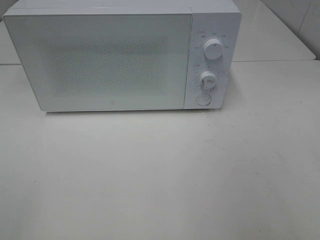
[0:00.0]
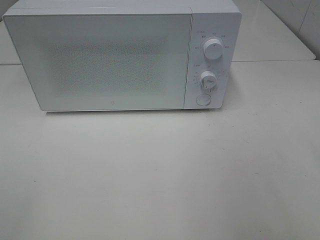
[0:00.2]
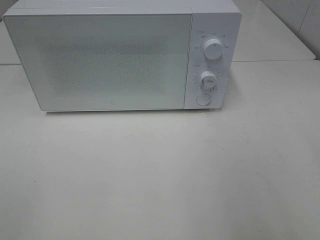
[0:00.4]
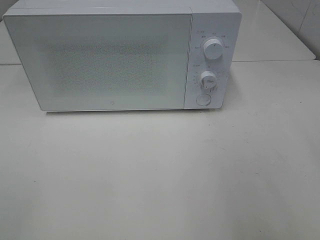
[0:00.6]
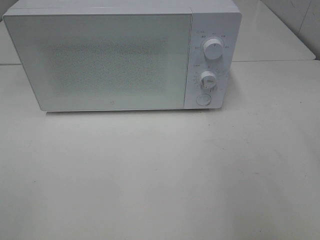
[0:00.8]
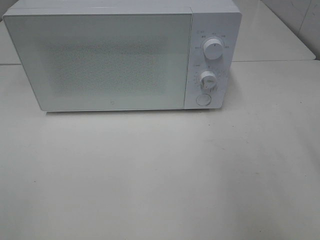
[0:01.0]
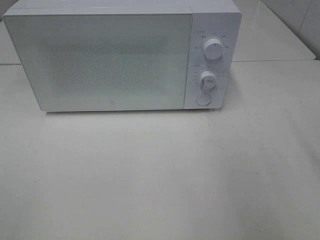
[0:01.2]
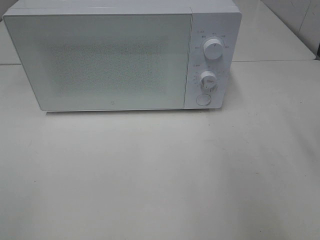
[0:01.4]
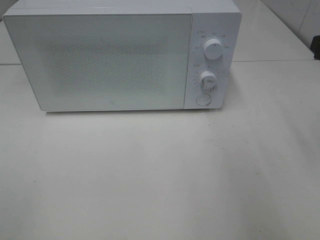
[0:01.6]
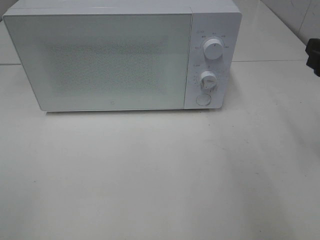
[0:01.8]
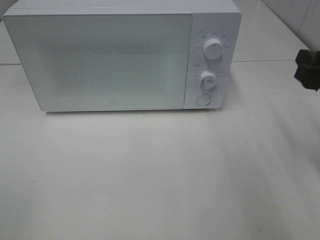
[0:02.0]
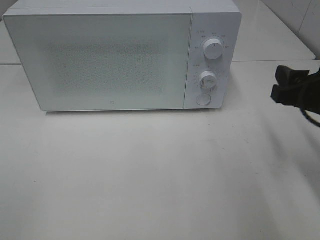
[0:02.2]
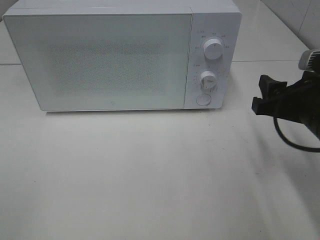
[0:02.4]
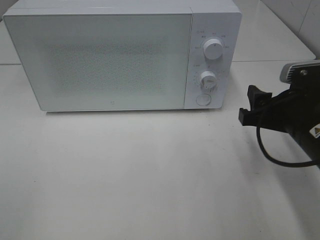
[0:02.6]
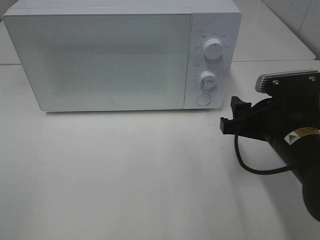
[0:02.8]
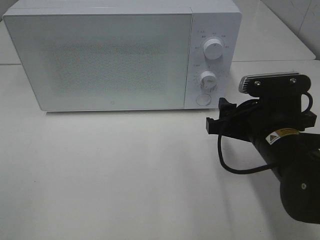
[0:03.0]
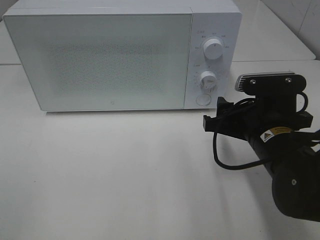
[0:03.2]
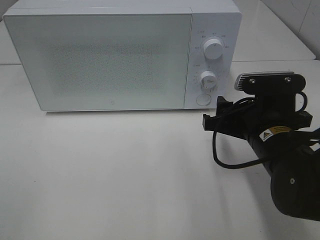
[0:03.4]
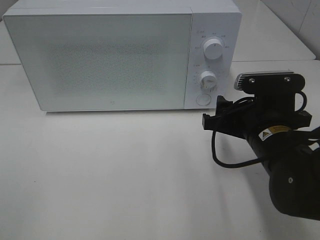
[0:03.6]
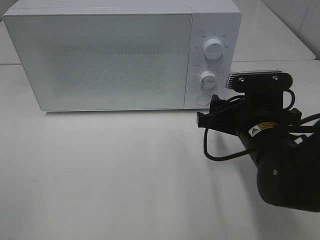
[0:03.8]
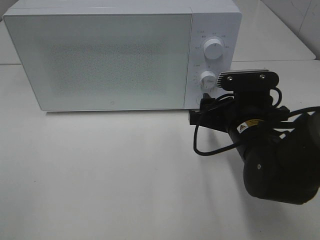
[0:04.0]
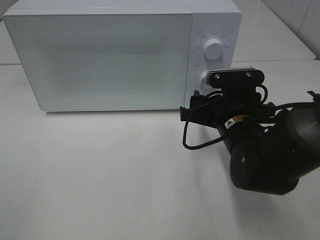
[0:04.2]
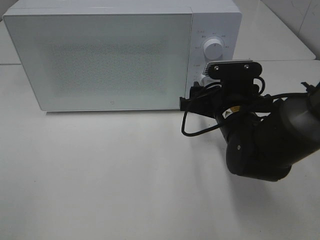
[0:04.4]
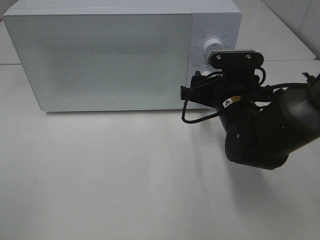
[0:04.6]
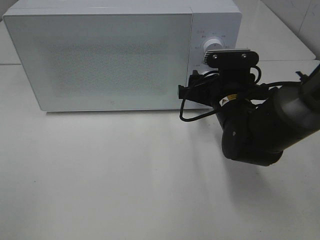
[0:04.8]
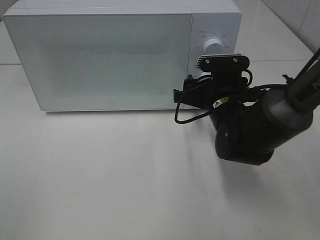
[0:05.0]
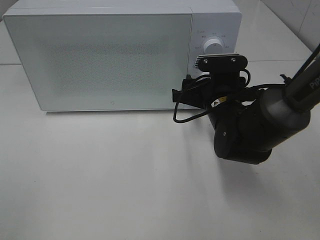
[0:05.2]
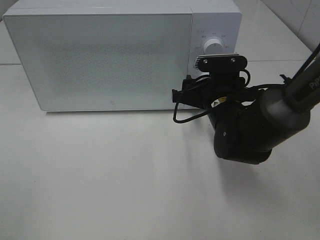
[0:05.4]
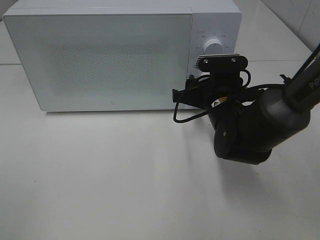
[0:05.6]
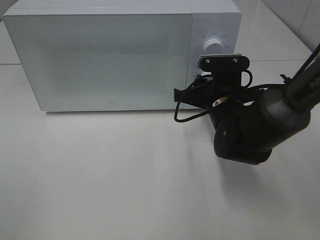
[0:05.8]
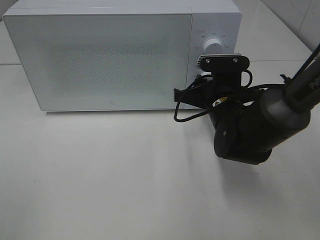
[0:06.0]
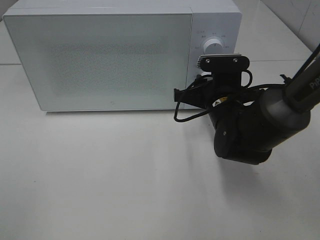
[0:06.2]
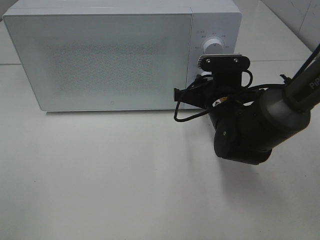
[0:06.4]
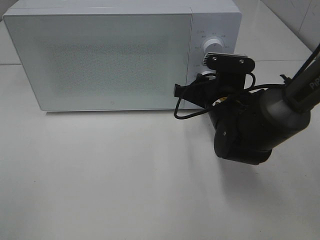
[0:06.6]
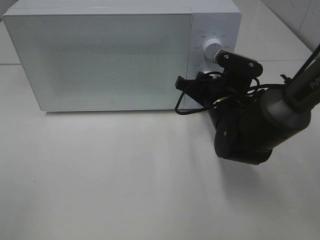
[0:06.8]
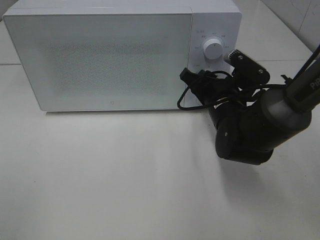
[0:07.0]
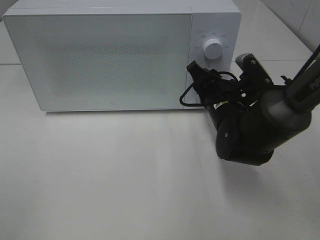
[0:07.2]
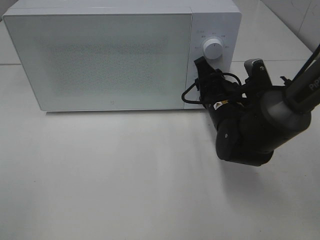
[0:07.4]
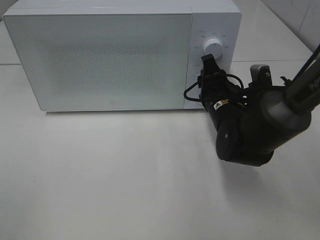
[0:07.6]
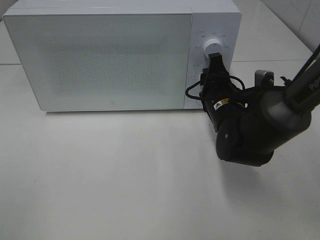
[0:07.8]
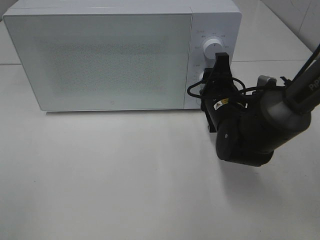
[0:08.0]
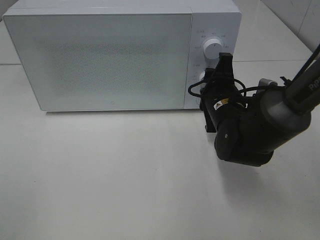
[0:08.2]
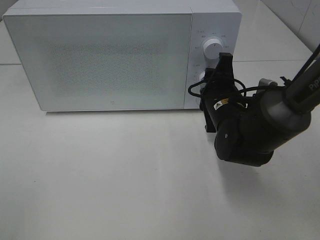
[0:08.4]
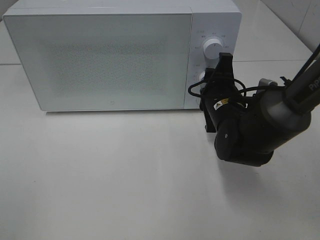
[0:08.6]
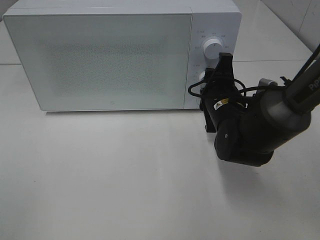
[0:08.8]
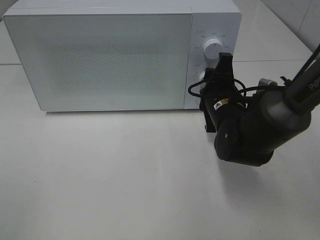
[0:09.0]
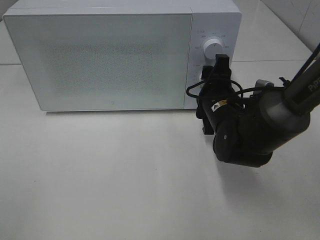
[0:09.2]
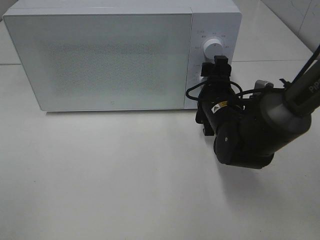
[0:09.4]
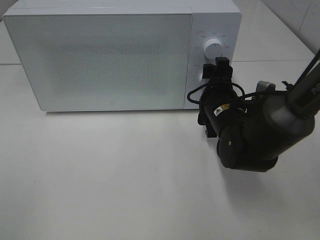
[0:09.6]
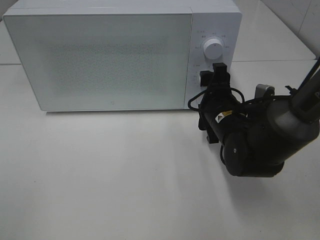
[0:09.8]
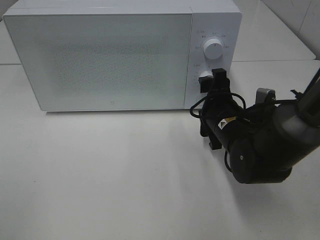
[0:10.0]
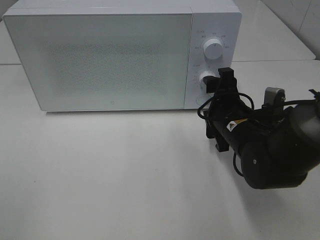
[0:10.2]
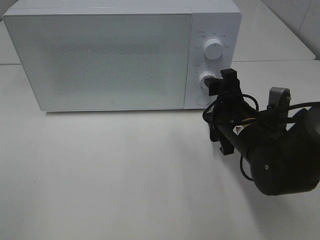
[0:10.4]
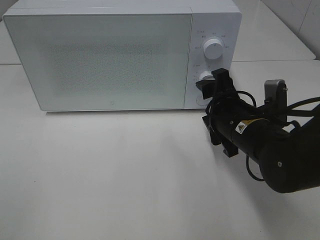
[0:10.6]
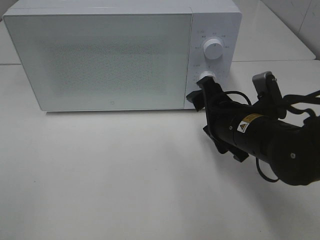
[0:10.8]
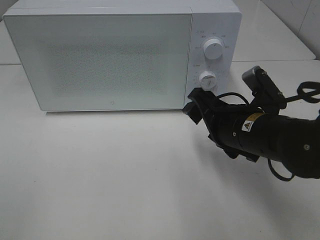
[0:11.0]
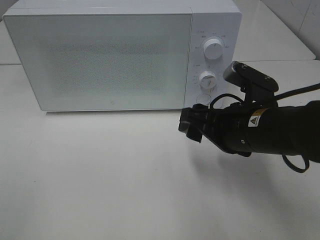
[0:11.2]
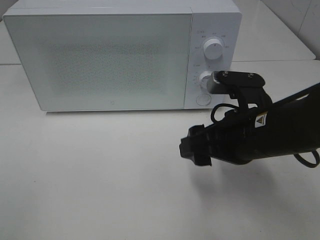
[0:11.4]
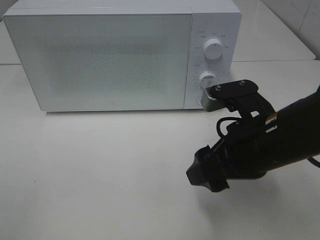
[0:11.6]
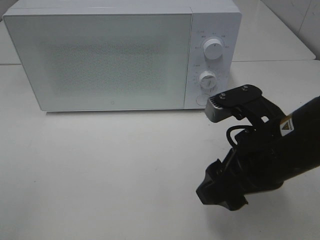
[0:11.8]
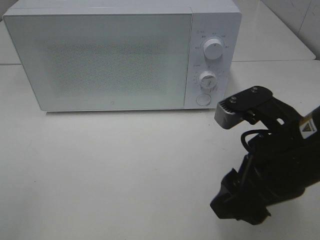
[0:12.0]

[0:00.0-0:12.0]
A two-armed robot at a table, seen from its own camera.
Task of the whole recording: Heat Sandwich.
Step, 0:00.0 to 0:09.8: Right hand: twist timer button.
0:01.6 to 0:03.0: The right gripper travels downward and to the left by roughly 15 cm.
0:03.0 to 0:04.4: The right gripper travels forward by some 5 cm.
0:04.4 to 0:06.0: The right gripper closes its fingers.
0:09.0 to 0:10.4: The right gripper shifts about 5 cm backward.
0:10.4 to 0:12.0: The right gripper heads backward and upward, covering some 15 cm.

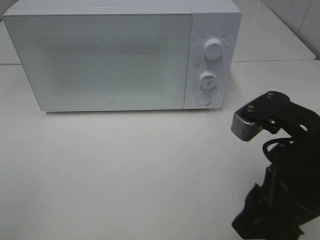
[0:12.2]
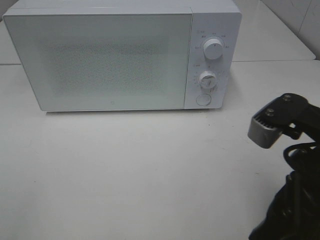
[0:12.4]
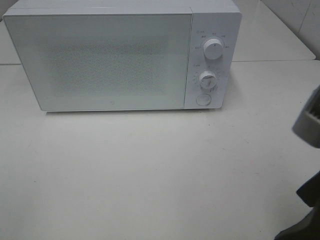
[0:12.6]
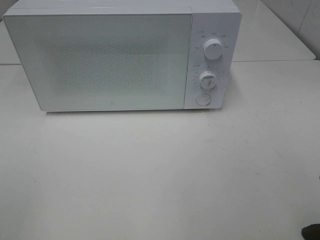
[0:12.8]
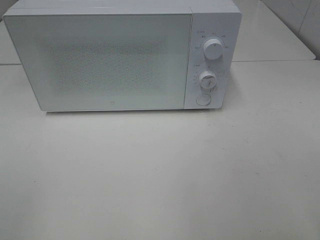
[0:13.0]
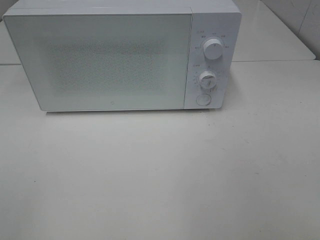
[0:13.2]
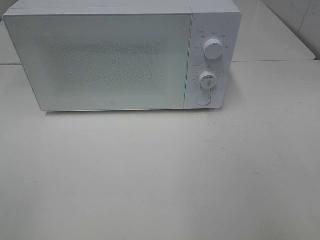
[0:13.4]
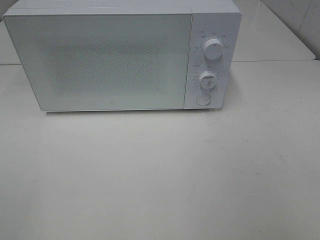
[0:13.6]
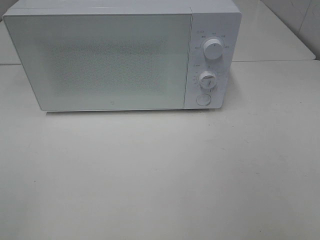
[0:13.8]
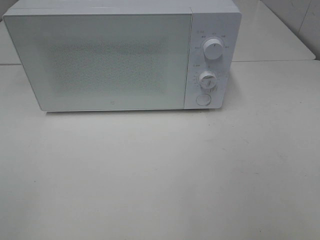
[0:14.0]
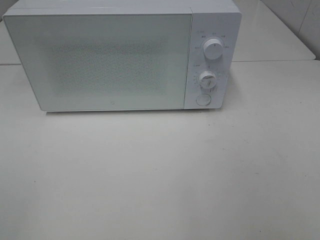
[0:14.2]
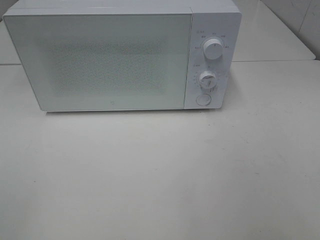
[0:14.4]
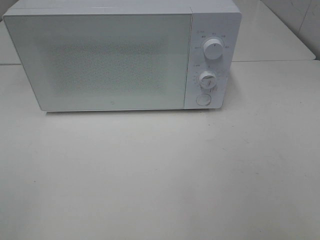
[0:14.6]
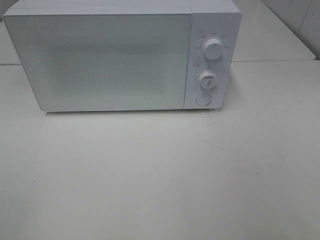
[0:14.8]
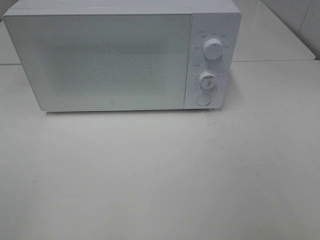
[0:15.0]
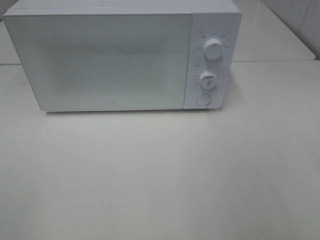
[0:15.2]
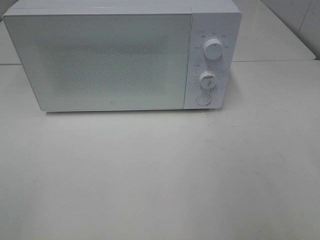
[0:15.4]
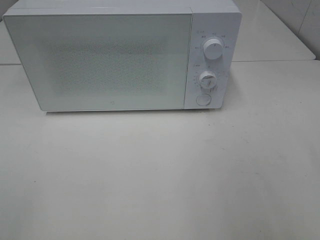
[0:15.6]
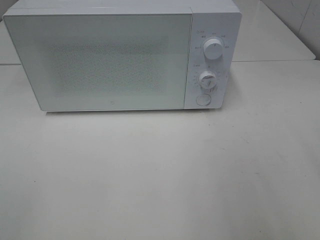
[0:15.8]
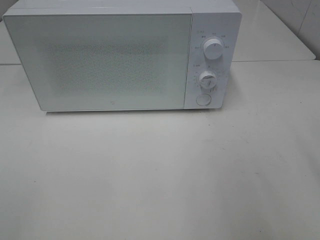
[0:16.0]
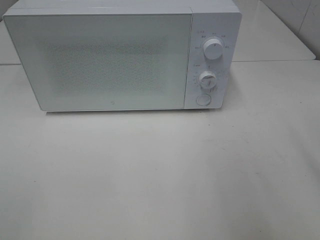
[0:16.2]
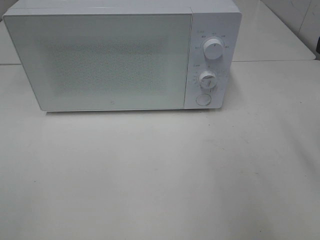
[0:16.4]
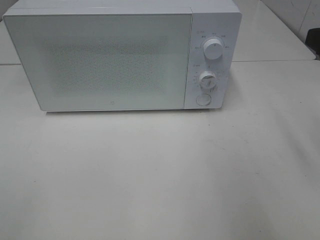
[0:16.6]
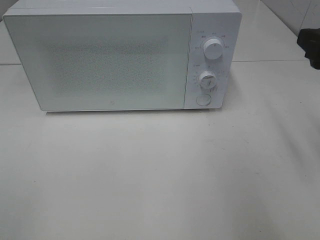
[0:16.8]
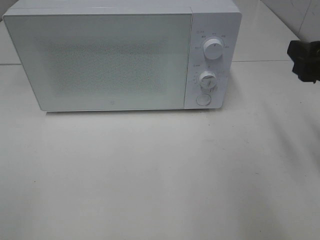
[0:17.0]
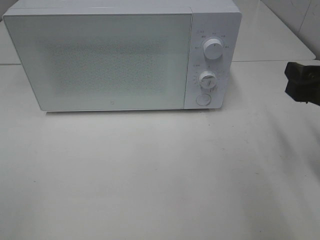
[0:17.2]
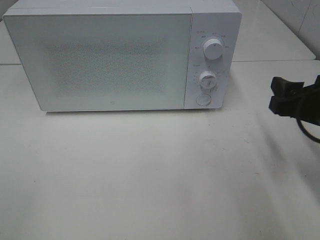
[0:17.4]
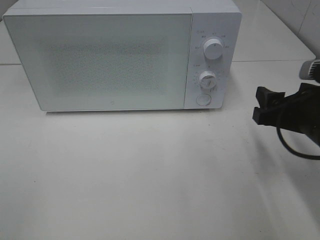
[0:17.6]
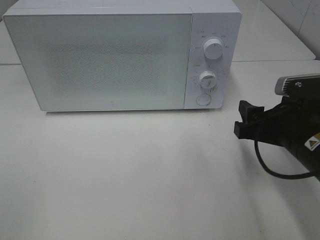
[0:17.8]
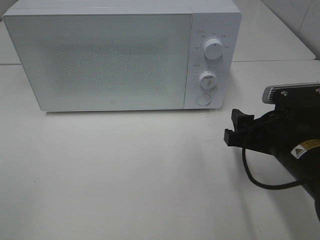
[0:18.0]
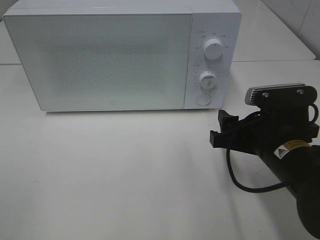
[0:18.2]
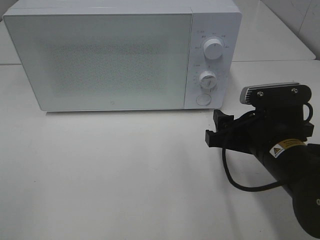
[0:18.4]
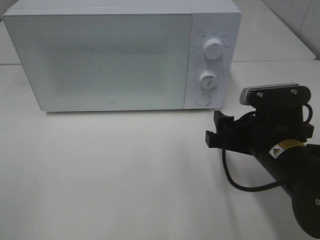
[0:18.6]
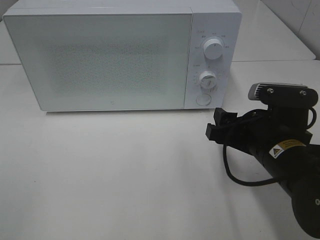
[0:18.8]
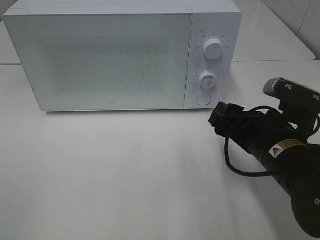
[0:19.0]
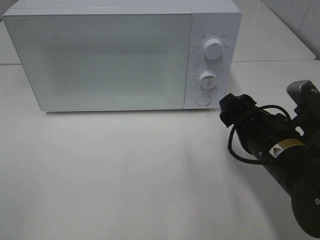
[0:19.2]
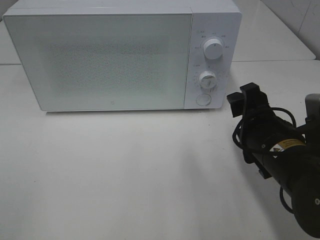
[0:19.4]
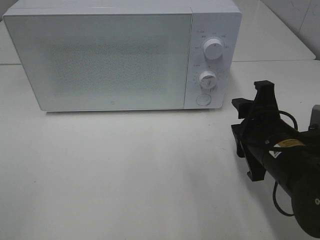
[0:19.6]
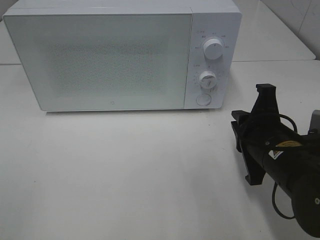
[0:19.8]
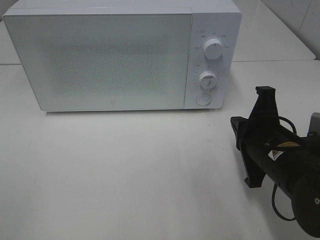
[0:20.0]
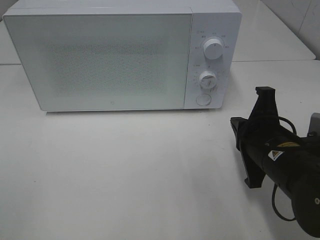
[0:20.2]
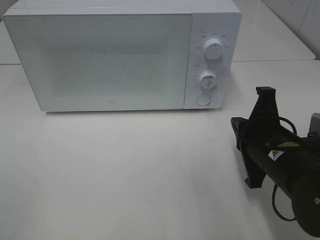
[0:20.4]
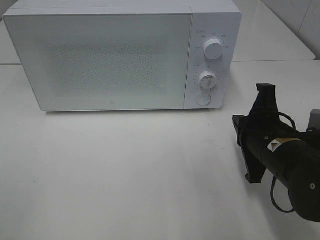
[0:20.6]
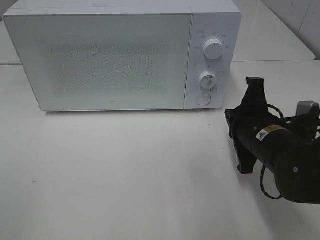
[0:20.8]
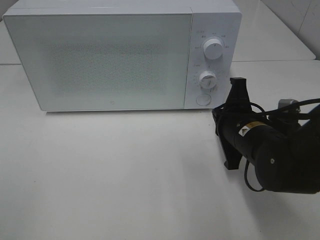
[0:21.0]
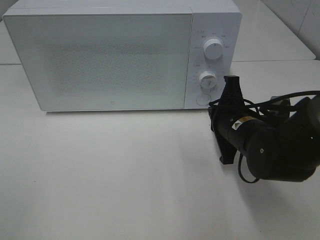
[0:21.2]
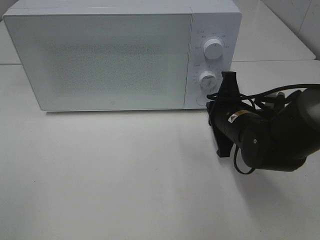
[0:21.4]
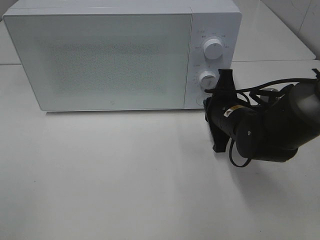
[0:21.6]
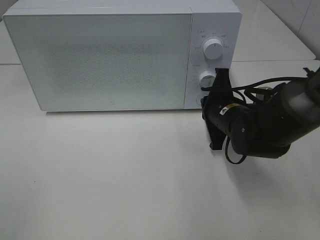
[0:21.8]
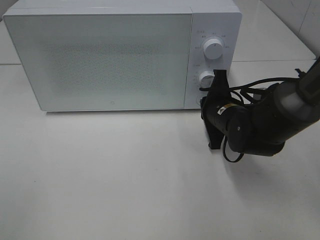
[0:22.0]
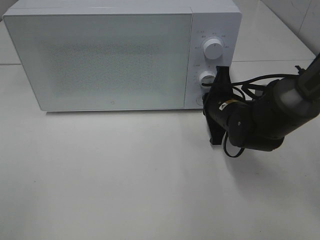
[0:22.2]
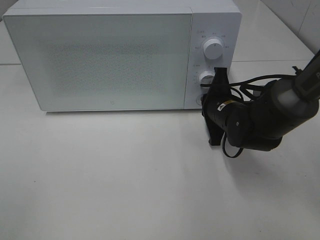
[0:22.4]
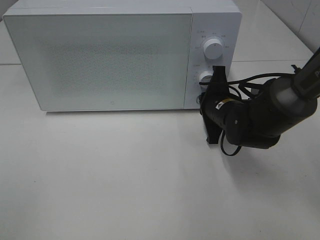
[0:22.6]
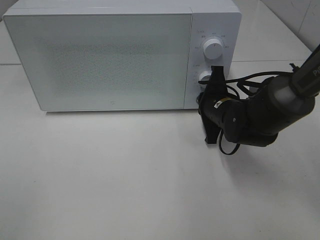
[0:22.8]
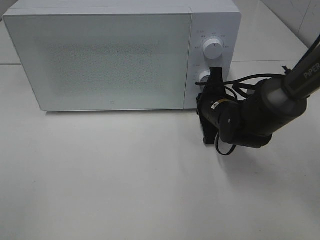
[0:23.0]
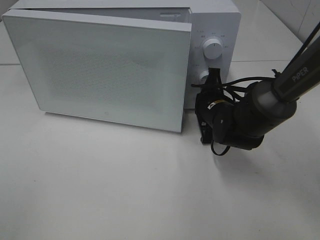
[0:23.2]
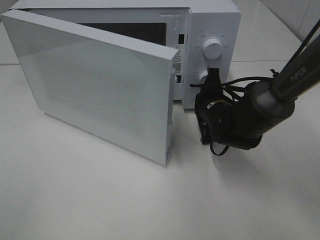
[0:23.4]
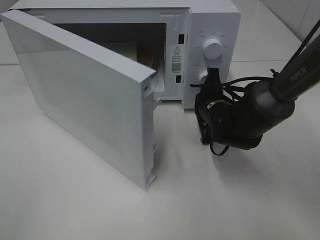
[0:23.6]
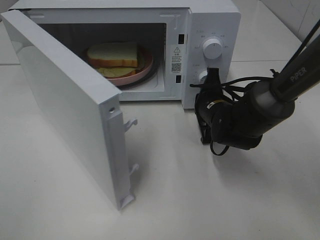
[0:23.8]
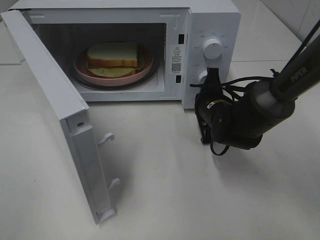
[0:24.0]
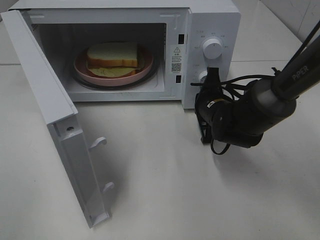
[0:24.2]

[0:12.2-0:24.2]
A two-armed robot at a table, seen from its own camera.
Task of the whole recording: Heat Sandwich.
0:12.2 to 0:13.8: The right gripper shifts approximately 20 cm backward, to the right and upward.
0:16.6 to 0:18.2: The right gripper moves downward and to the left, approximately 20 cm.
0:18.2 to 0:19.8: The right gripper closes.
0:19.8 to 0:21.2: The right gripper is displaced forward by roughly 5 cm.
0:21.2 to 0:22.6: The right gripper shifts about 5 cm forward.
